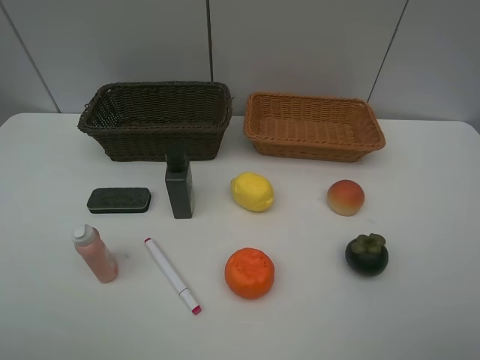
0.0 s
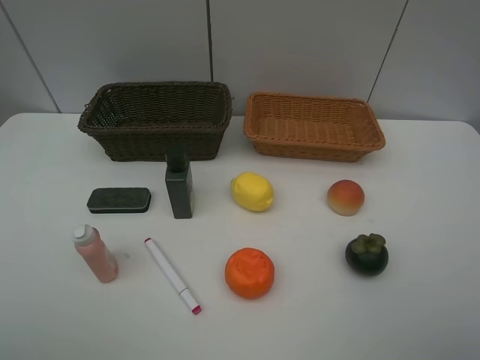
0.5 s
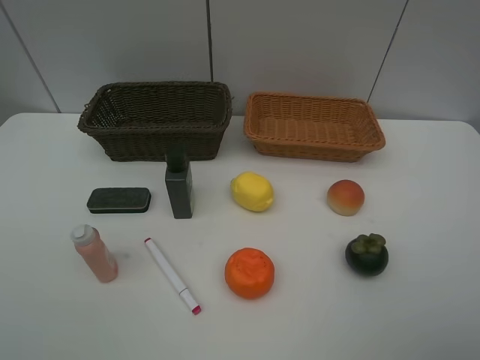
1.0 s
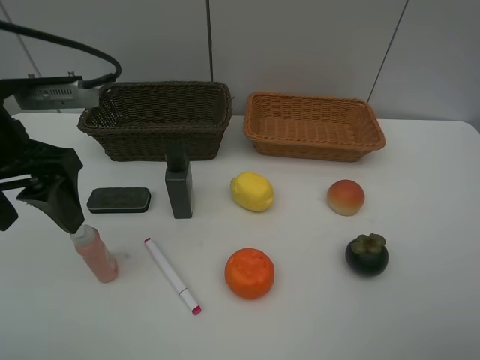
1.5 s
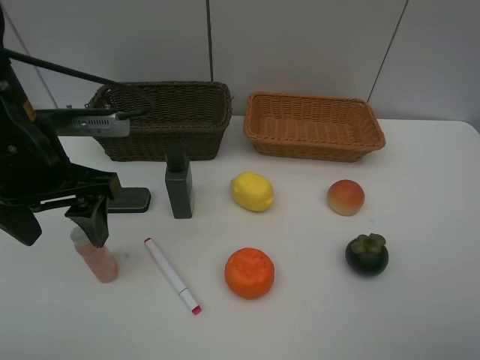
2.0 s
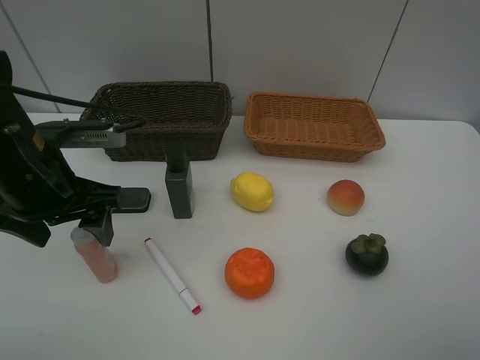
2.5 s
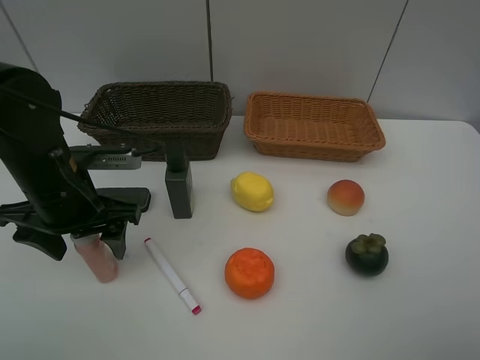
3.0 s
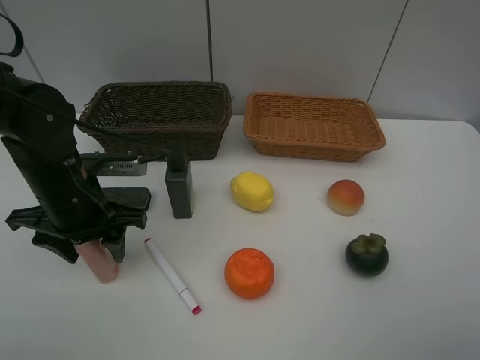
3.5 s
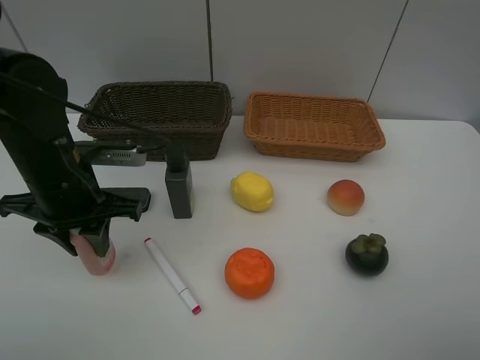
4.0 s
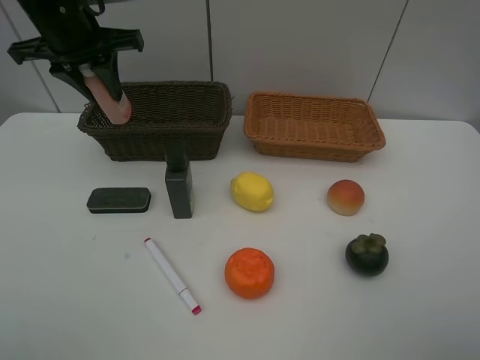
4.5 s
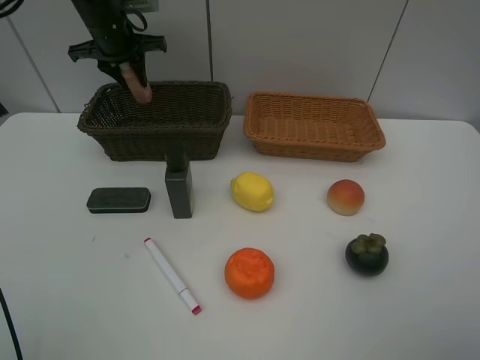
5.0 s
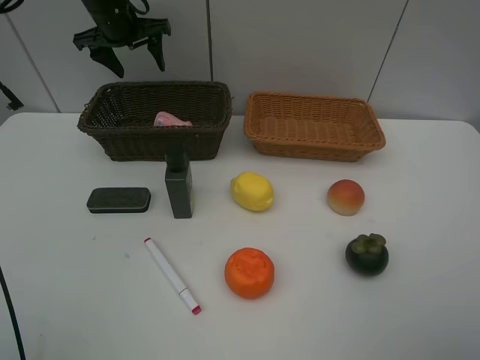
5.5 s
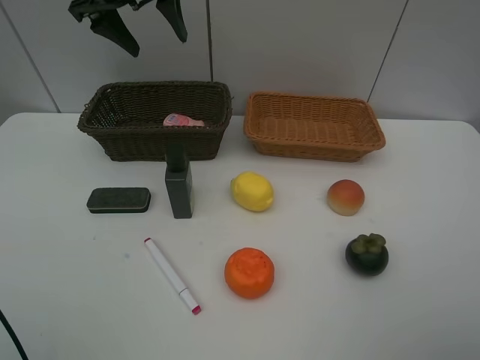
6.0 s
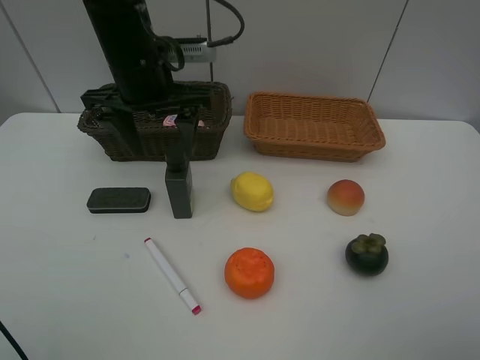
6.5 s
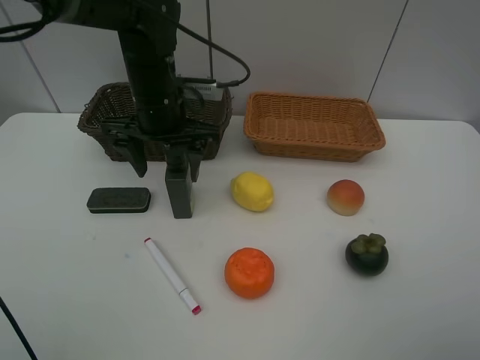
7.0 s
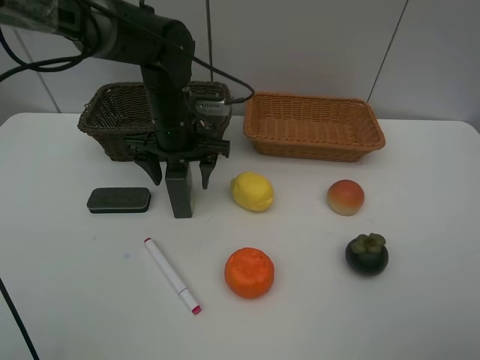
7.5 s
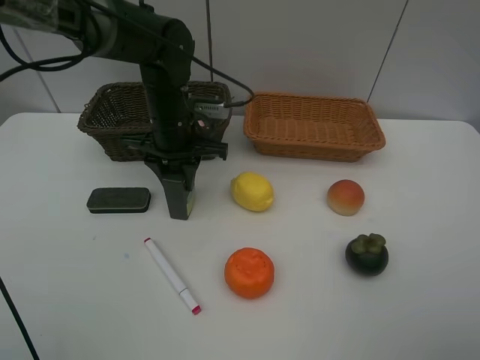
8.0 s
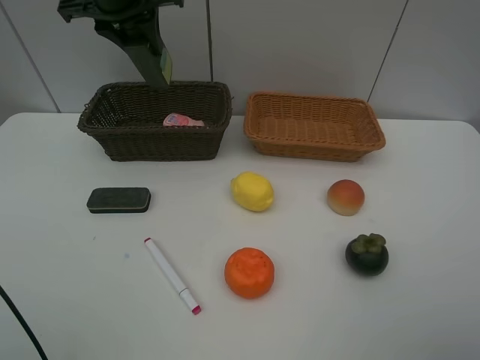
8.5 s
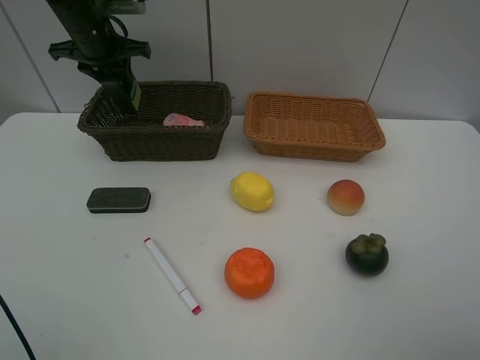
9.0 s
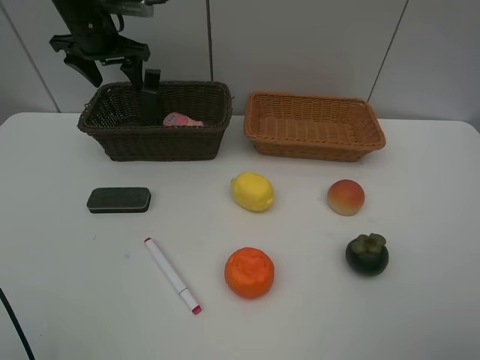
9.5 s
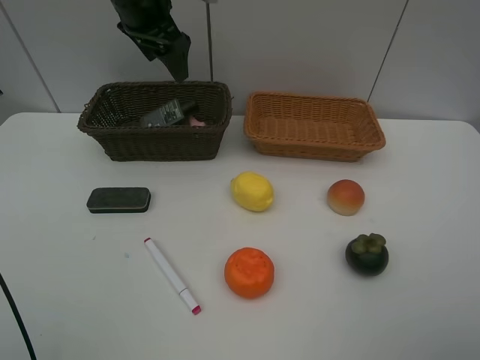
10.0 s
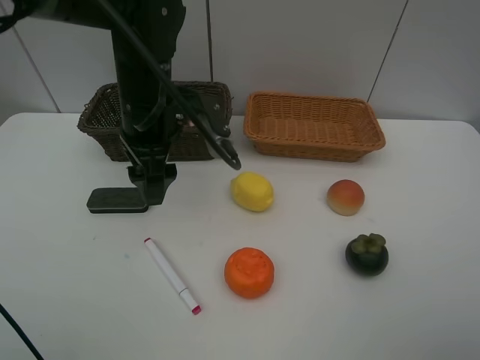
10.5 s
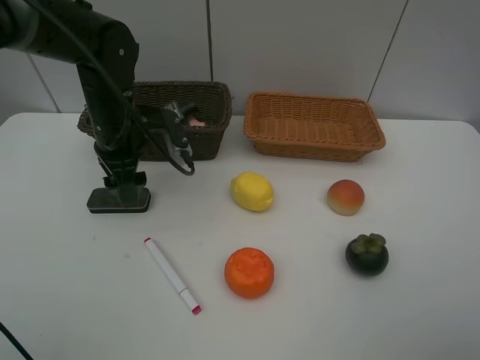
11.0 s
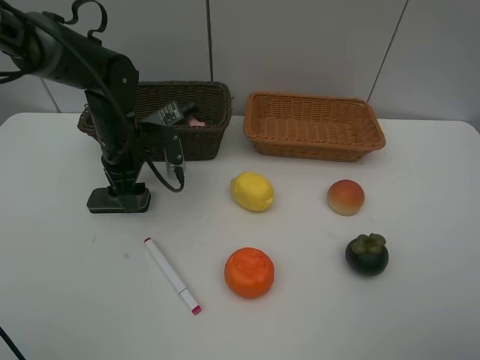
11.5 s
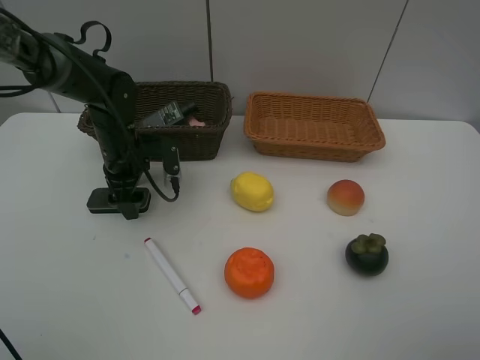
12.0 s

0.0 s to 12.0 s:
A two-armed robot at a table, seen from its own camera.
Task of the whole recording: Place multiple objects separately in different baskets.
Step, 0.0 to 4.0 s: Pick up the laundry detergent with left gripper.
Step, 4.5 to 5.0 s: Place the laundry detergent in the dark basket with left gripper.
Step, 5.5 to 8.0 s: Pick up the hard facial cleanser with left gripper.
Step, 8.5 to 9.5 s: Place the hard facial cleanser in the dark basket with left gripper.
0.0 to 2.0 s: The left gripper heads forward and to the right, covering some 25 cm.
2.0 to 4.0 s: The left gripper heads downward, covering approximately 5 cm, and closes its fingers.
4.0 to 6.0 s: The left gripper shifts roughly 25 cm forward and upward, and opens its fingers.
6.0 to 8.0 s: The left gripper shifts about 20 cm downward and to the right, and closes.
8.0 to 10.0 s: The left gripper swings up and down, some 15 cm each way, with 2 reversals, and opens its fingers.
10.0 to 12.0 s: The left gripper heads downward, covering some 20 cm.

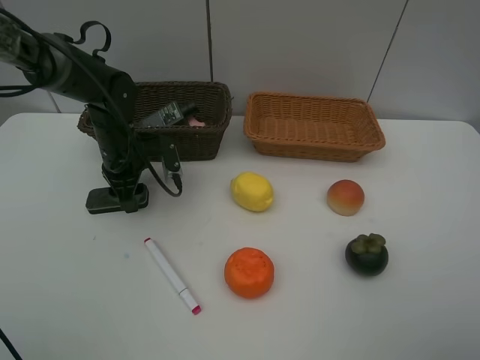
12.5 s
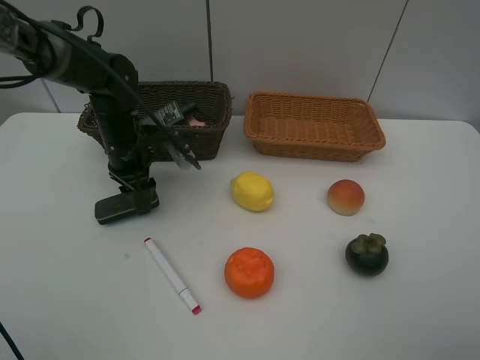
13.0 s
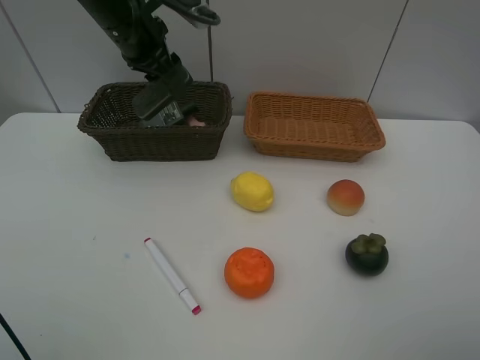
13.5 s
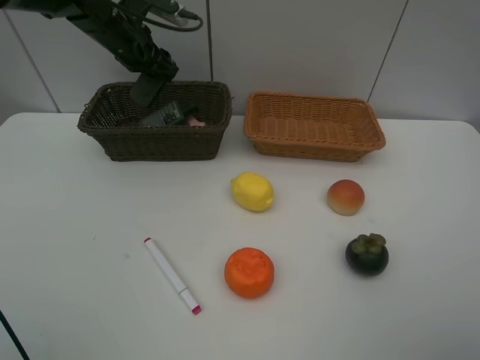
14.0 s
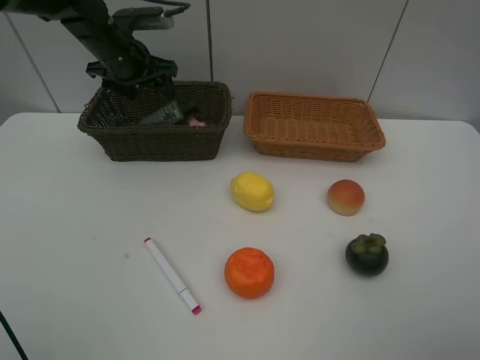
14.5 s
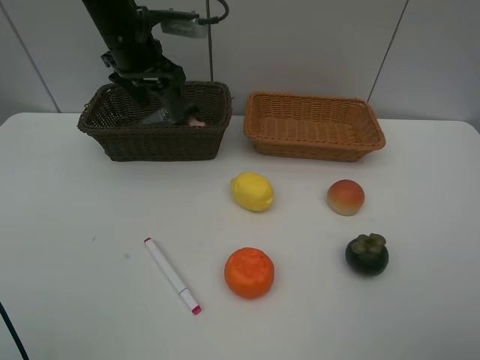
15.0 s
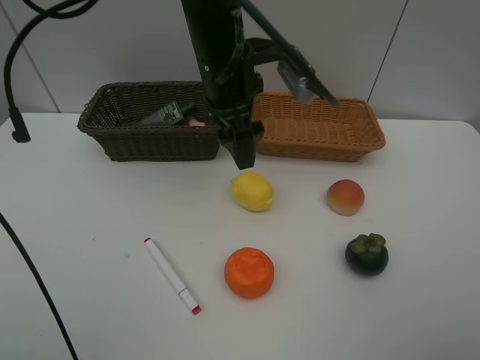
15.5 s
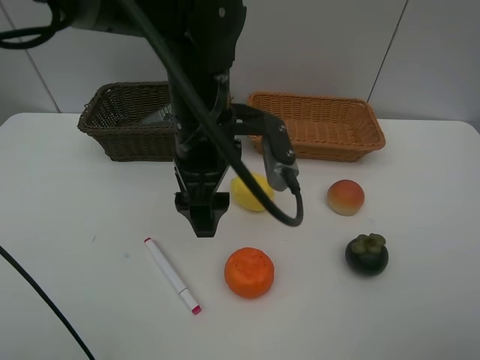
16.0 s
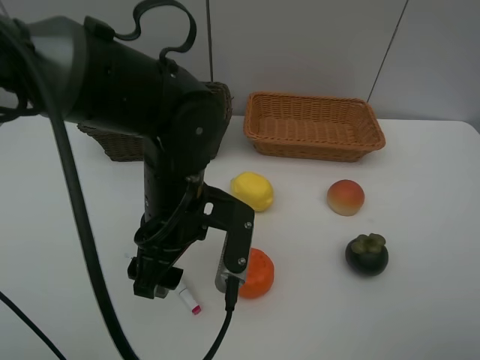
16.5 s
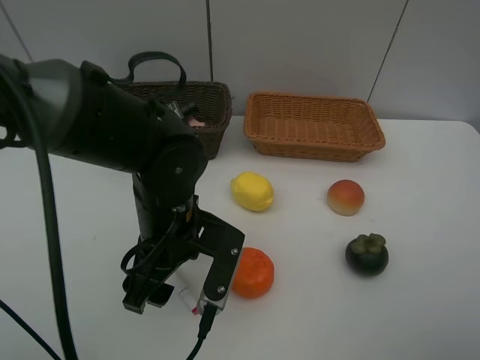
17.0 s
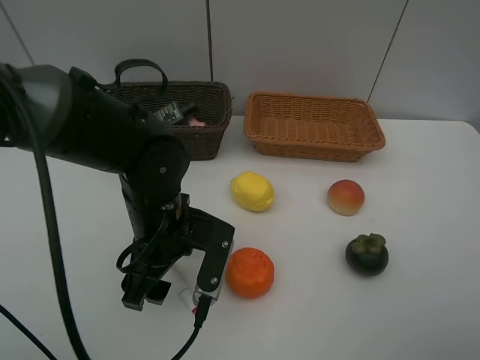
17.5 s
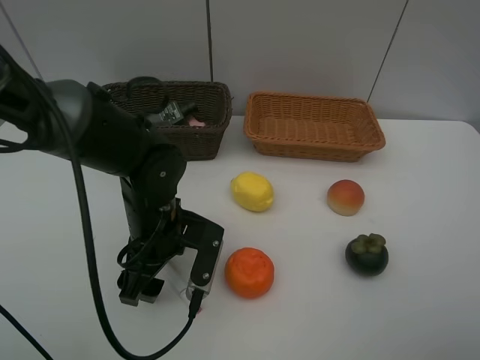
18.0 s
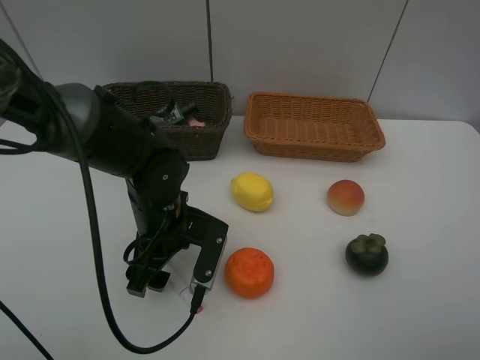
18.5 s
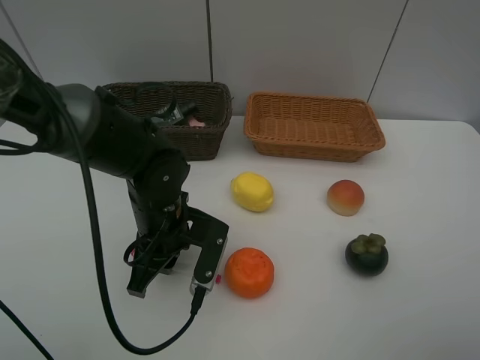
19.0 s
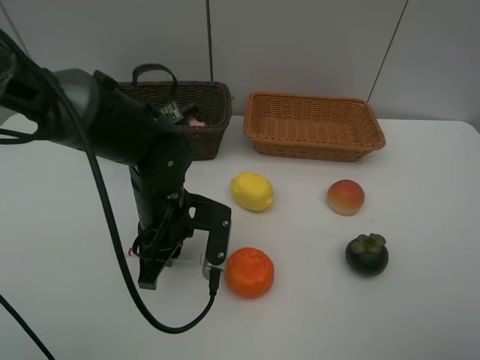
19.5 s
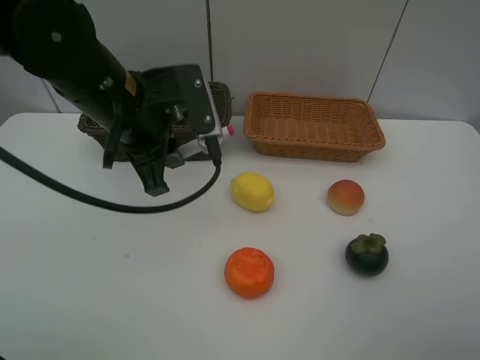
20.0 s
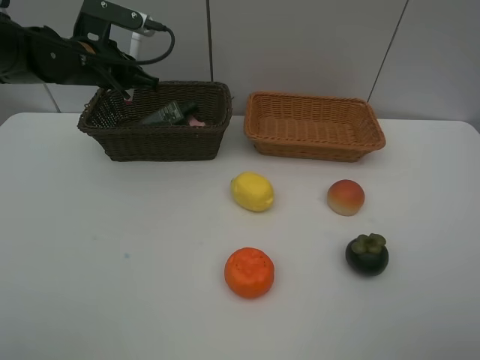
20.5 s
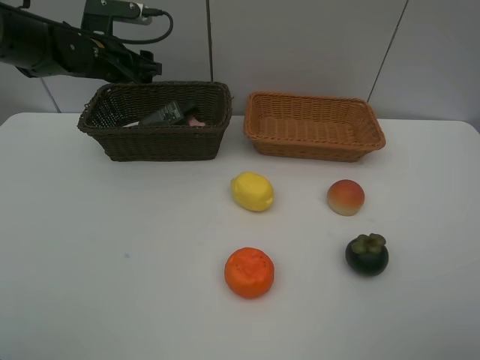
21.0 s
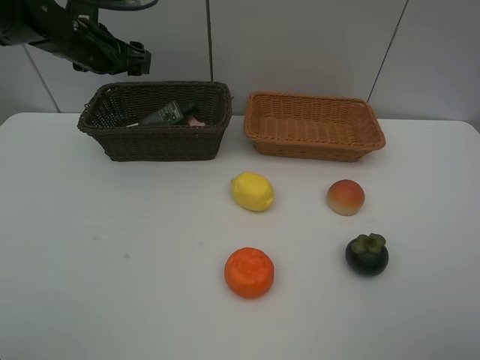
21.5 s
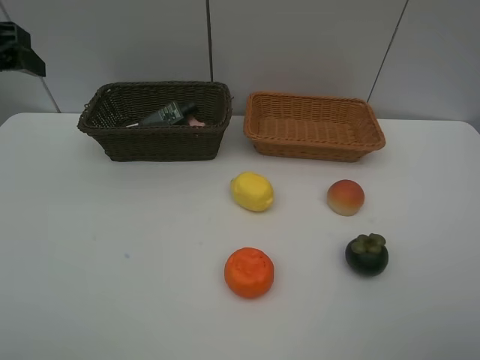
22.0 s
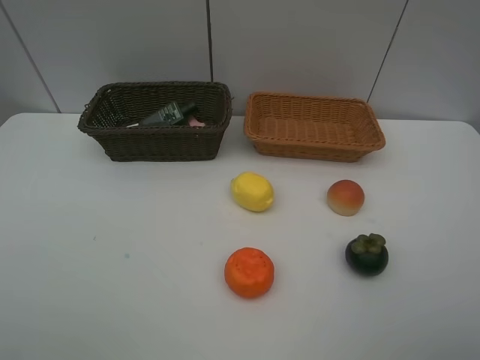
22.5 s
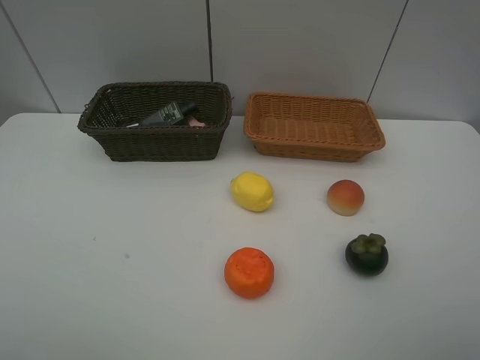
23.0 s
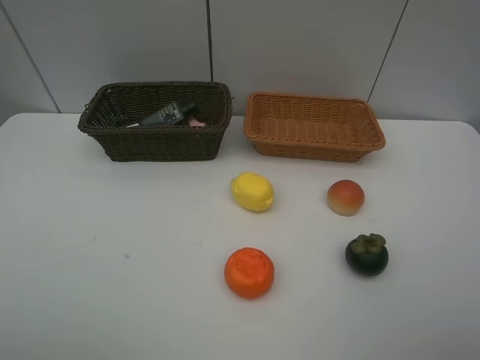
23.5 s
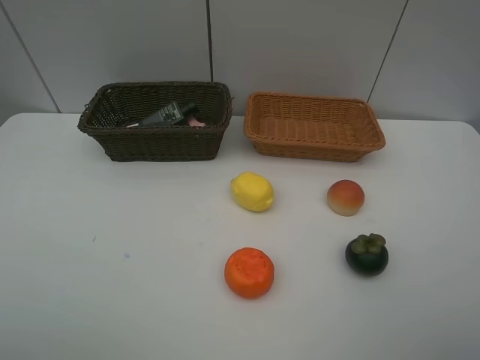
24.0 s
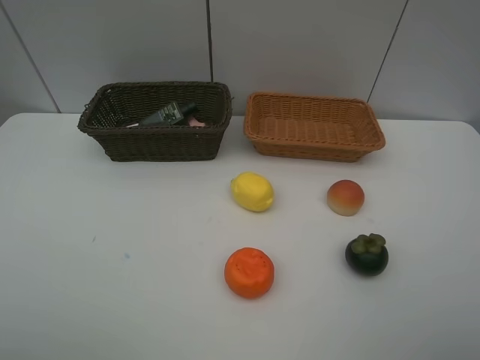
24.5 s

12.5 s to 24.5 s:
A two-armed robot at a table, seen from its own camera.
Task of the whole recording: Place multiple objects separately in different baskets.
Step, 13.5 to 14.5 s: Place the blackboard eraser in the dark basket with left gripper.
Step, 15.0 to 19.5 s: Pick up pink marker pen with left gripper.
Step, 20.0 to 21.0 s: Place the pink marker pen in the dark basket with left gripper.
12.5 to 14.5 s: The left gripper moves upward and forward, some 15 cm, and opens up.
14.5 to 16.5 s: The left gripper moves backward and to the right, roughly 30 cm.
16.5 to 18.5 s: The left gripper heads downward, covering about 5 cm.
18.5 to 20.5 s: The left gripper shifts roughly 25 cm forward, to the left and upward, and closes.
20.5 to 22.5 s: The left gripper heads backward, covering about 35 cm, and opens up.

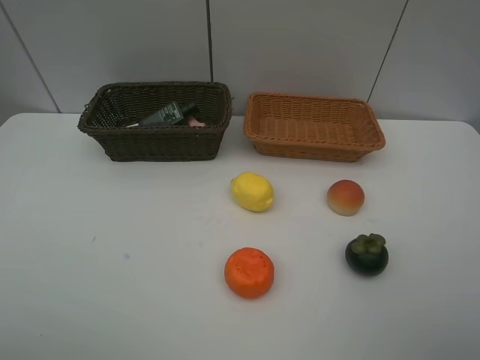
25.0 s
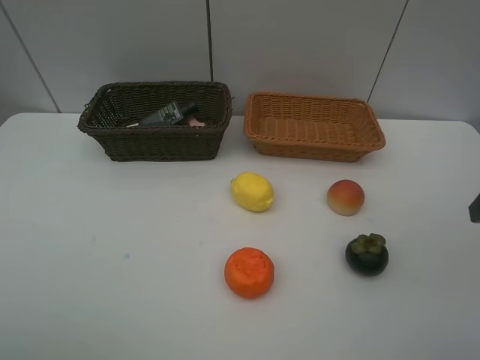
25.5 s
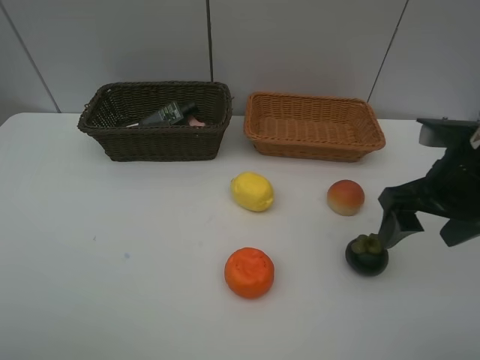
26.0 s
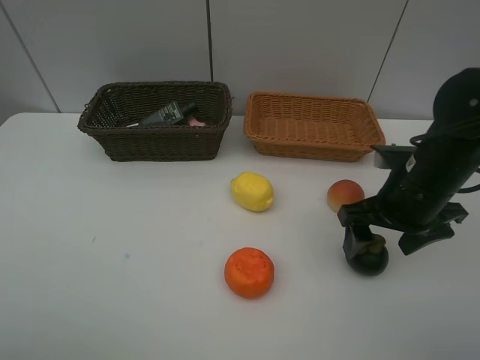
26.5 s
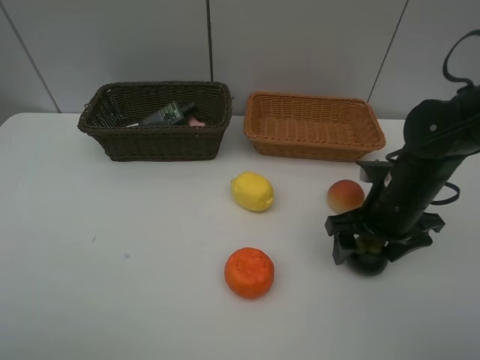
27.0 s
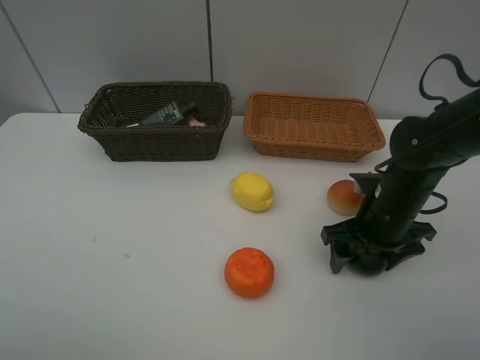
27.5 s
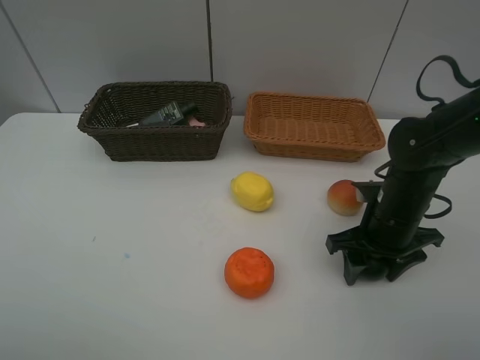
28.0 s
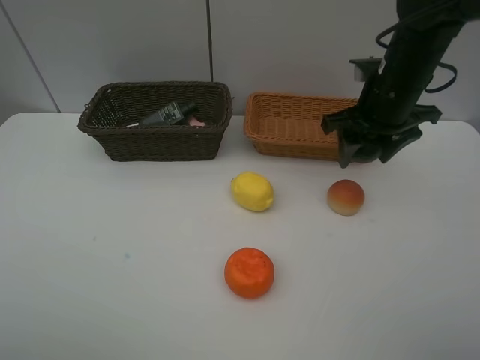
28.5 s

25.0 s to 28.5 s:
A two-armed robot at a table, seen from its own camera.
Task of the whole recording: Place multiple objects separately in different baskets.
Step, 25.0 to 28.0 s: Pick up the mangosteen with right gripper.
25.0 to 27.0 s: The right gripper moves forward, downward and to the left, roughly 30 cm.
27.0 to 28.5 s: The right gripper heads upward and forward, covering some 15 cm, and closes.
